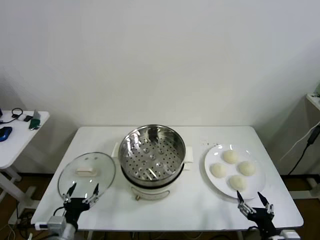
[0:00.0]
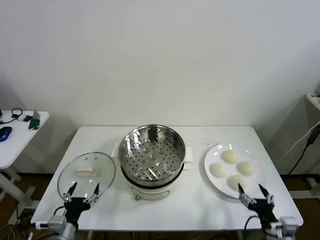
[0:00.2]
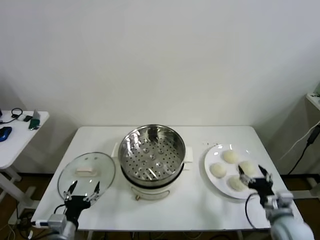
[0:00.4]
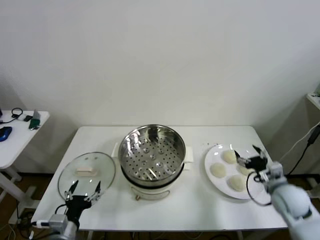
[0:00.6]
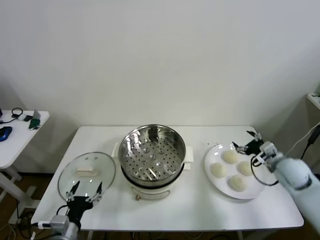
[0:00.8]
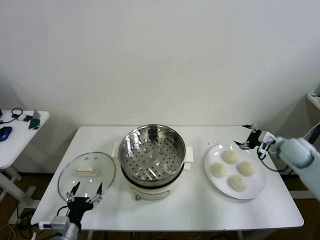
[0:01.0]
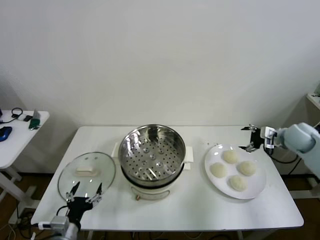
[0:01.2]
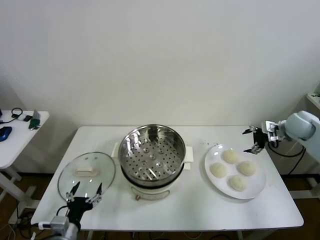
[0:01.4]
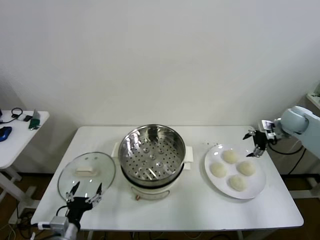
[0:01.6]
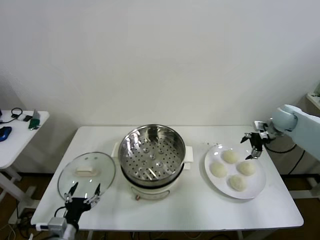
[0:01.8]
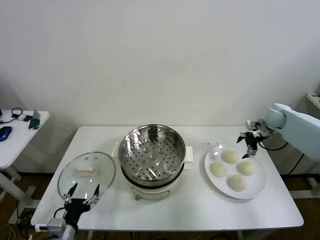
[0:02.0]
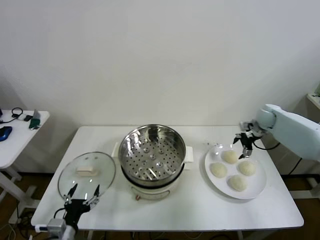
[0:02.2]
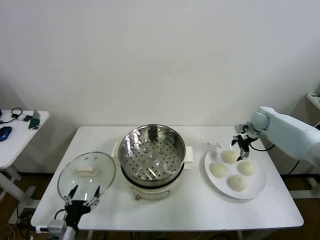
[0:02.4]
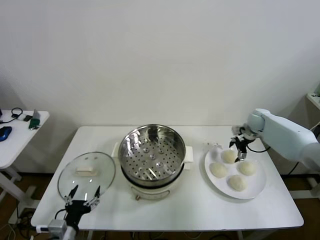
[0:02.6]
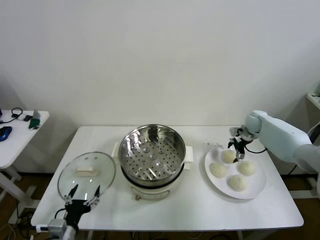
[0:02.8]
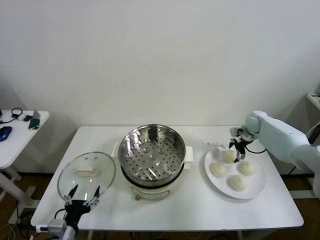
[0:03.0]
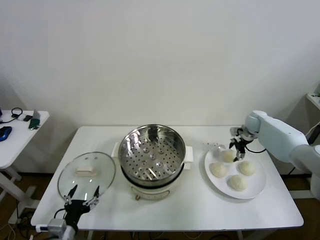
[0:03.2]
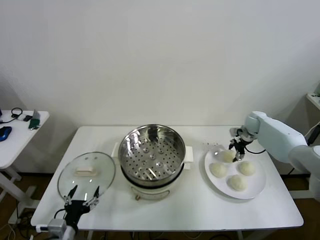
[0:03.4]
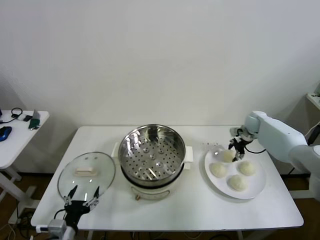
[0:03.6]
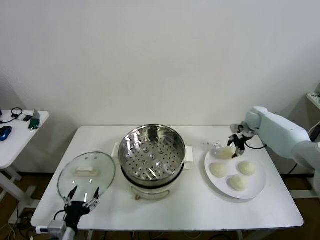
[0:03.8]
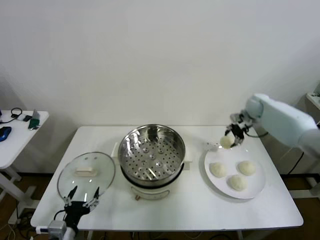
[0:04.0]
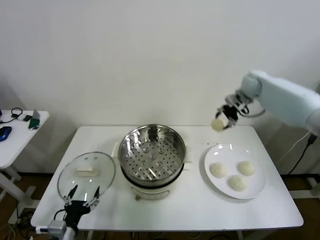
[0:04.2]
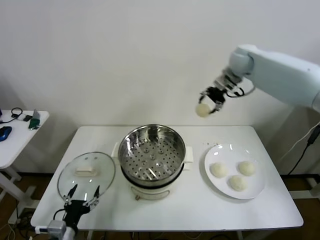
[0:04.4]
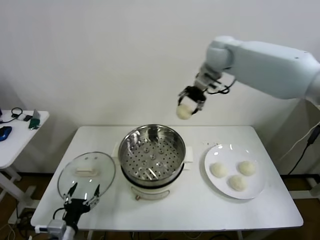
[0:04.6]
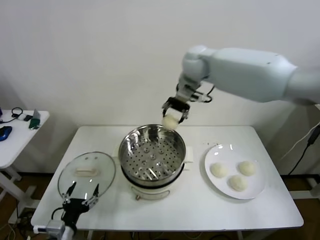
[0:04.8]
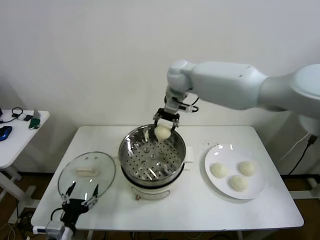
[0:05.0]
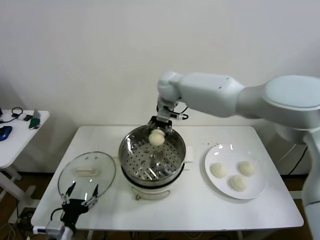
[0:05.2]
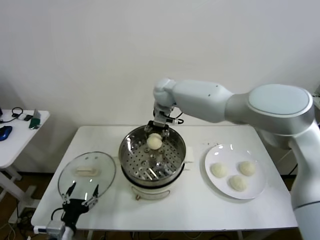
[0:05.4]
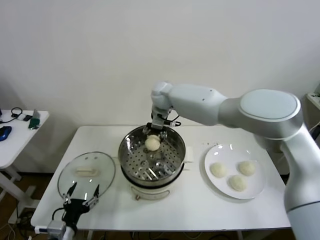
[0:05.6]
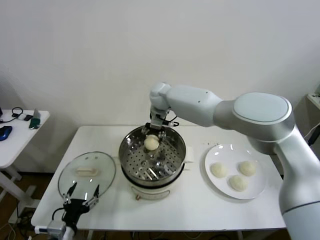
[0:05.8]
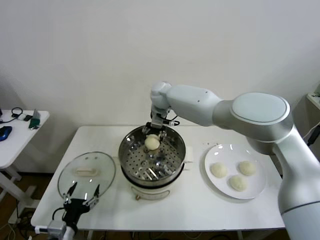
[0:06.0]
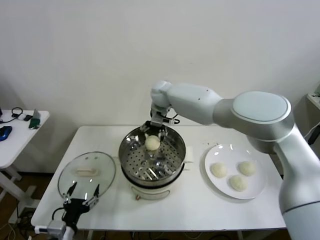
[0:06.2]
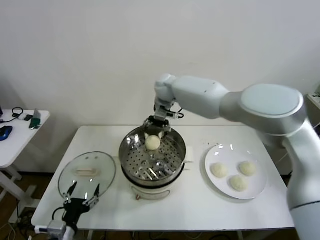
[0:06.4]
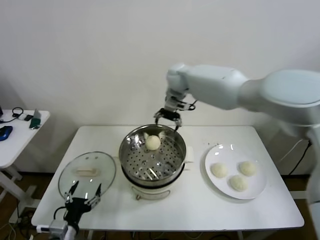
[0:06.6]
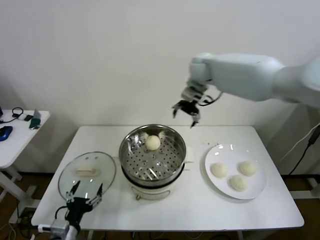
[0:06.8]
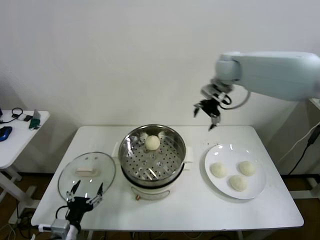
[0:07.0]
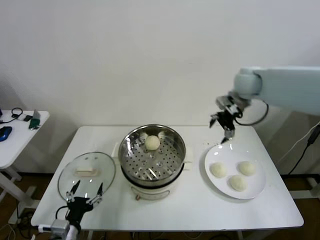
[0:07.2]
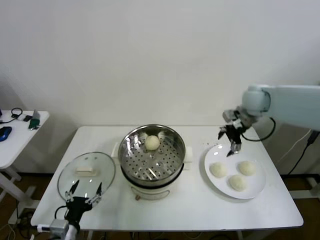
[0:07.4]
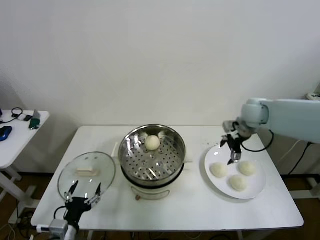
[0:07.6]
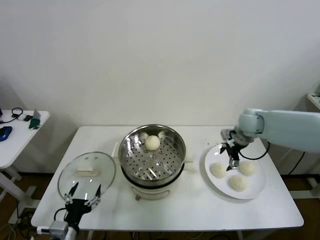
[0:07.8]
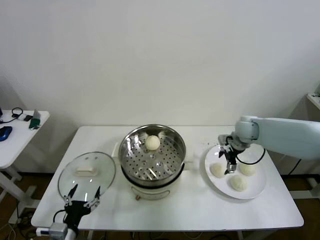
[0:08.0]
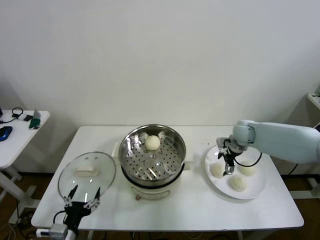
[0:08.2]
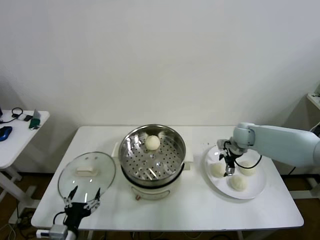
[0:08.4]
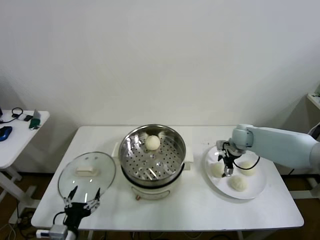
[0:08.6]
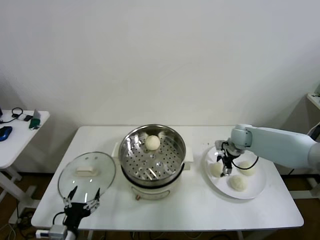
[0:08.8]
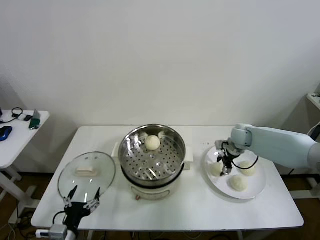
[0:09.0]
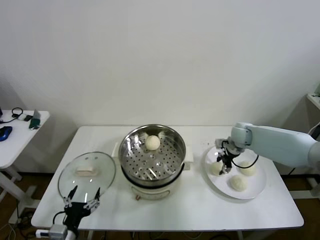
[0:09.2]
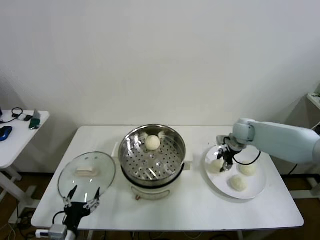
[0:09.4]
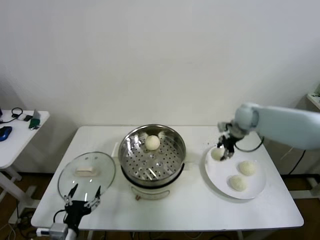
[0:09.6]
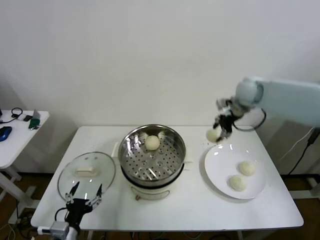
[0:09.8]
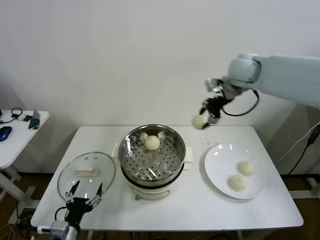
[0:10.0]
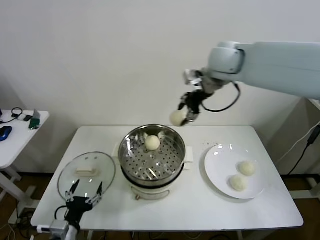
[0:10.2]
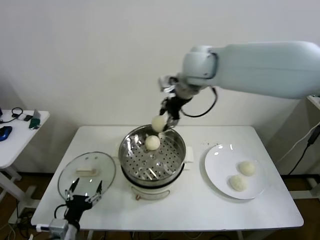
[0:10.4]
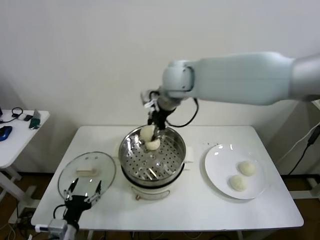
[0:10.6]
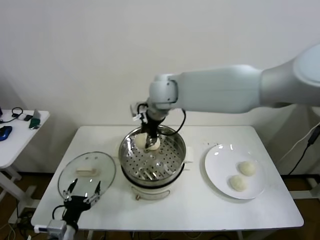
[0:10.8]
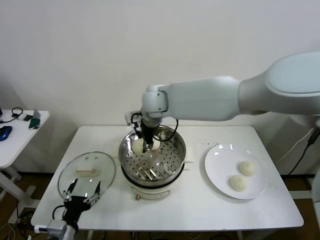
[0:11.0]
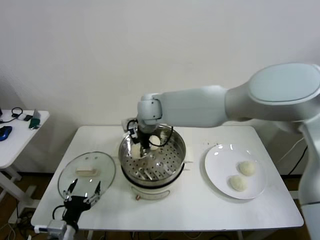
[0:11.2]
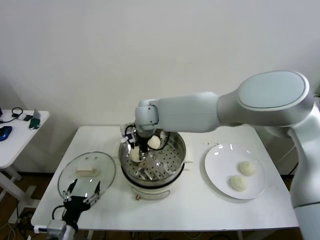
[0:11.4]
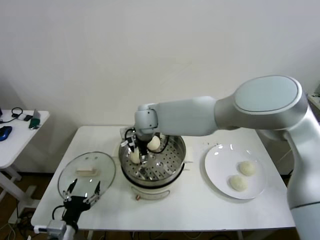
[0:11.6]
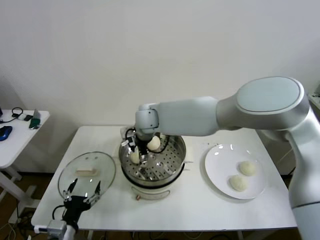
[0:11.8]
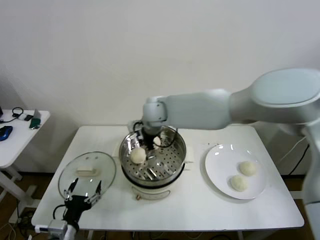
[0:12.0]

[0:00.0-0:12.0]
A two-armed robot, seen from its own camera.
Step, 0.0 to 3.4 s: Grasp the baozi in the plate with right gripper.
Step, 3.6 to 6.2 s: Place the baozi on the steamer with right gripper.
Step, 6.4 to 9.0 s: Grasp the baozi in the plate with right gripper.
Step, 9.2 to 11.6 s: Place the baozi on the steamer with right gripper.
1.6 to 3.0 s: The right gripper heads downward, forward and to the left, covering roughly 15 cm.
3.0 to 4.4 s: The right gripper is displaced upward and to the left by about 35 cm, and closes its fingers.
4.4 to 6.0 s: The right gripper is displaced to the left and downward by approximately 25 cm.
6.0 to 7.6 s: The right gripper heads to the right, covering roughly 30 cm, and opens its fingers.
7.6 to 9.0 s: The right gripper moves downward, approximately 10 cm, and closes up.
9.0 to 10.4 s: The right gripper travels upward and to the left by about 40 cm.
10.4 to 12.0 s: The right gripper travels downward and to the left by approximately 15 cm, and opens.

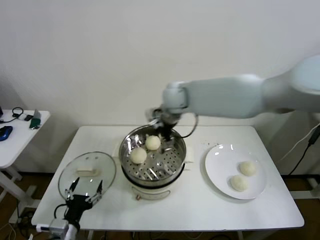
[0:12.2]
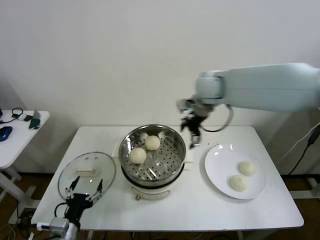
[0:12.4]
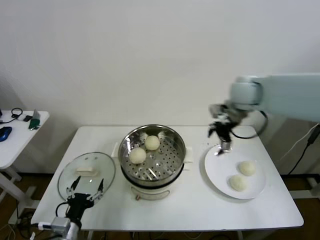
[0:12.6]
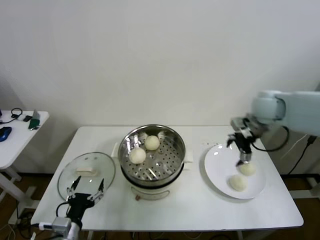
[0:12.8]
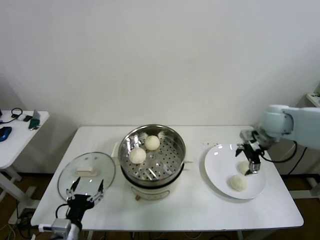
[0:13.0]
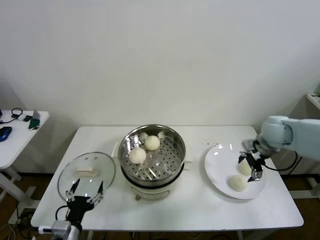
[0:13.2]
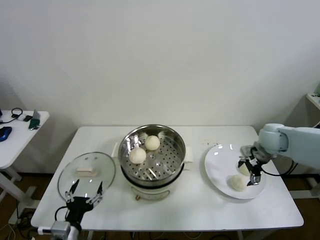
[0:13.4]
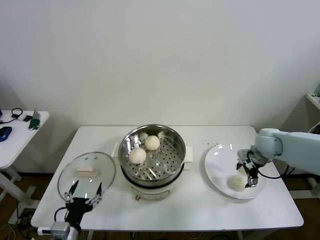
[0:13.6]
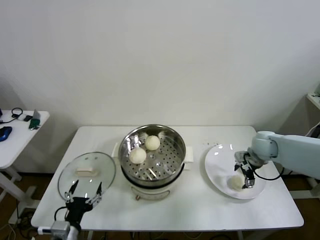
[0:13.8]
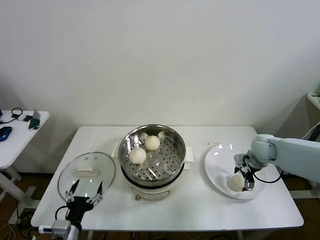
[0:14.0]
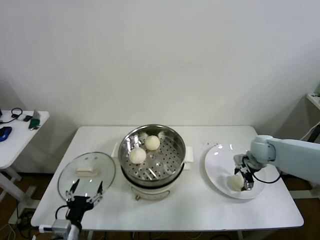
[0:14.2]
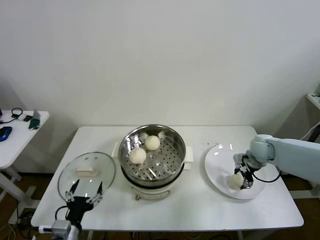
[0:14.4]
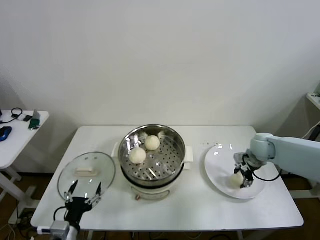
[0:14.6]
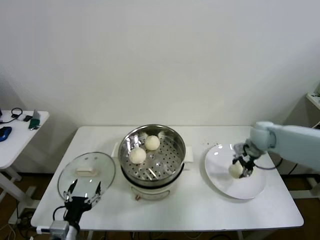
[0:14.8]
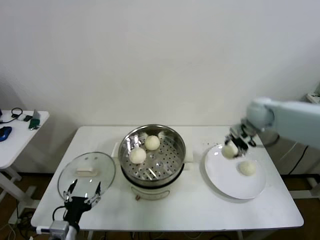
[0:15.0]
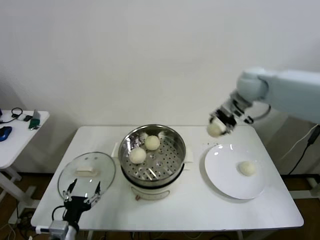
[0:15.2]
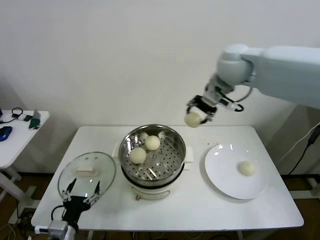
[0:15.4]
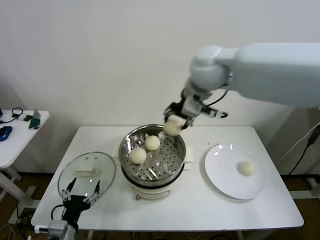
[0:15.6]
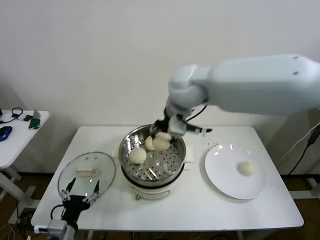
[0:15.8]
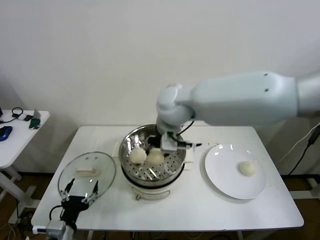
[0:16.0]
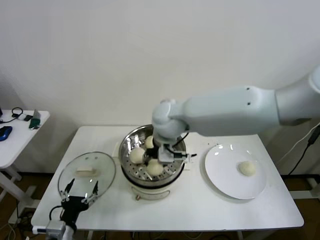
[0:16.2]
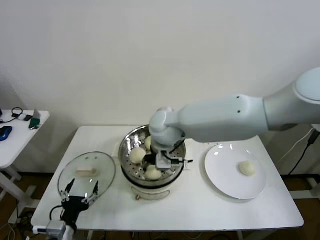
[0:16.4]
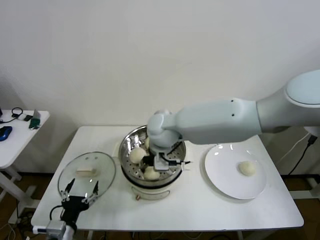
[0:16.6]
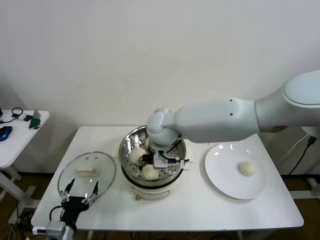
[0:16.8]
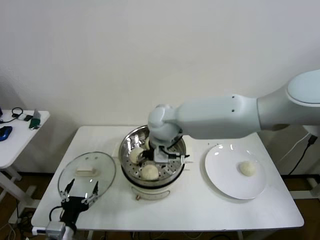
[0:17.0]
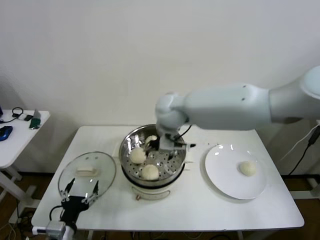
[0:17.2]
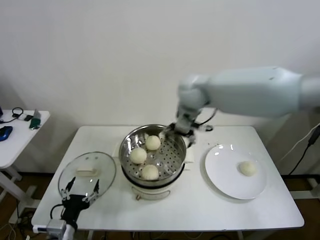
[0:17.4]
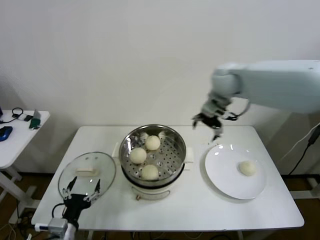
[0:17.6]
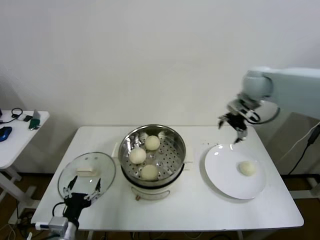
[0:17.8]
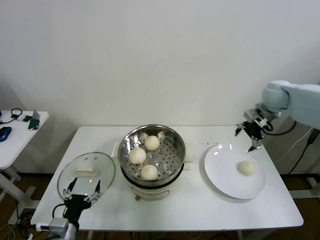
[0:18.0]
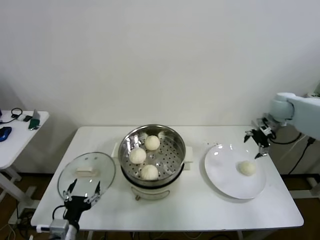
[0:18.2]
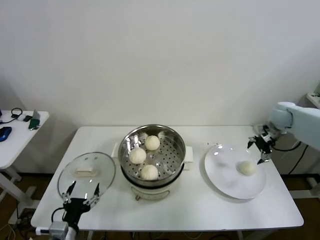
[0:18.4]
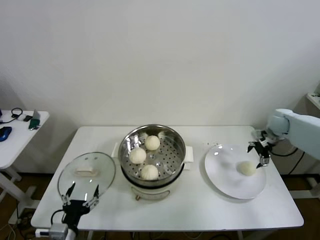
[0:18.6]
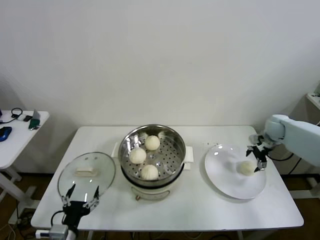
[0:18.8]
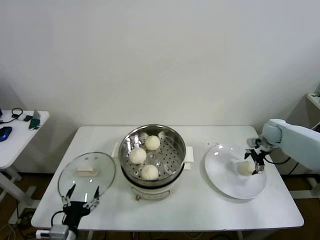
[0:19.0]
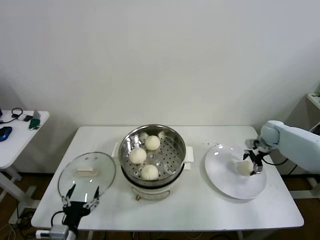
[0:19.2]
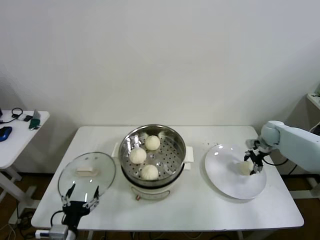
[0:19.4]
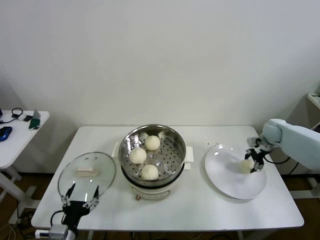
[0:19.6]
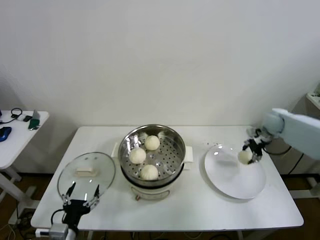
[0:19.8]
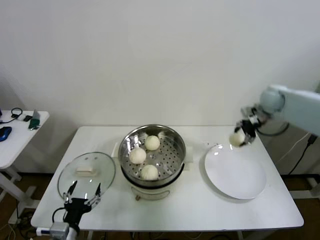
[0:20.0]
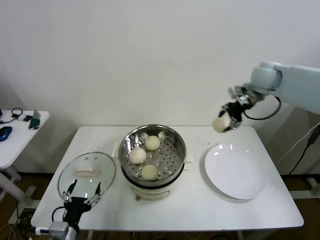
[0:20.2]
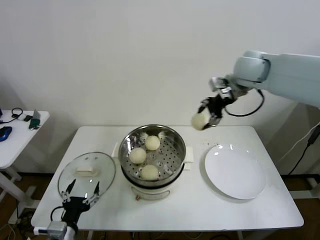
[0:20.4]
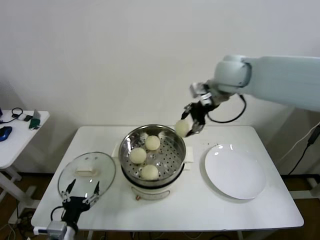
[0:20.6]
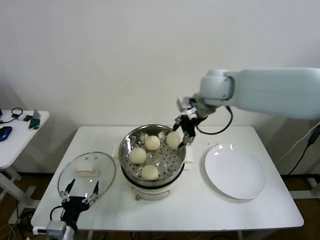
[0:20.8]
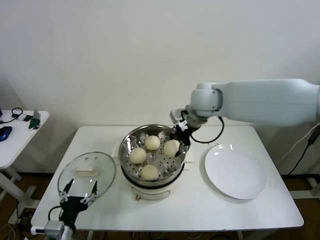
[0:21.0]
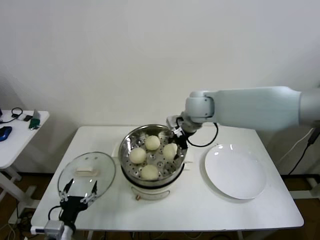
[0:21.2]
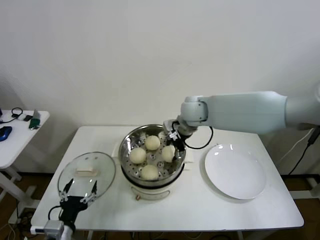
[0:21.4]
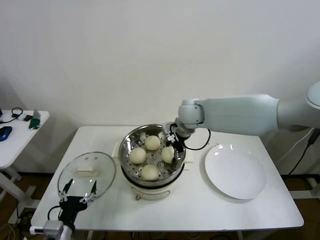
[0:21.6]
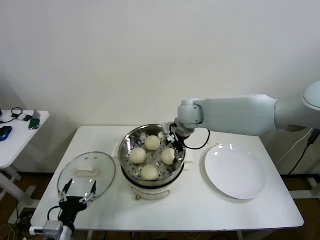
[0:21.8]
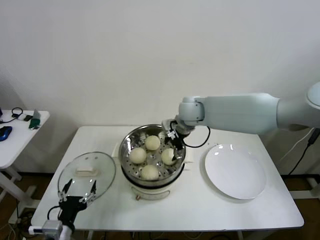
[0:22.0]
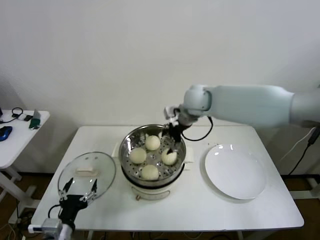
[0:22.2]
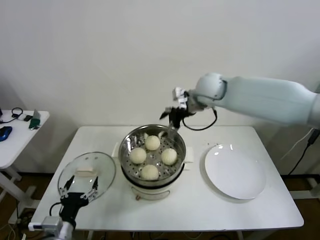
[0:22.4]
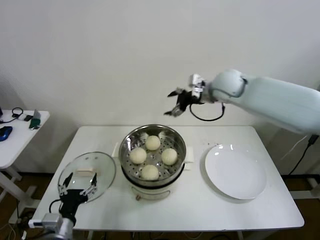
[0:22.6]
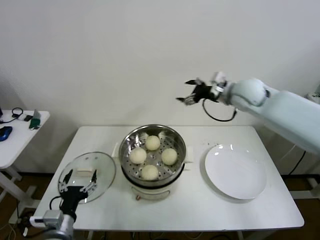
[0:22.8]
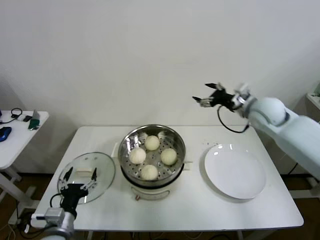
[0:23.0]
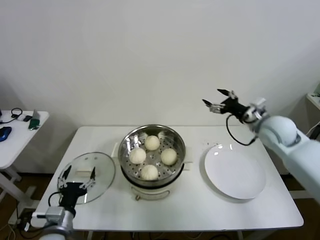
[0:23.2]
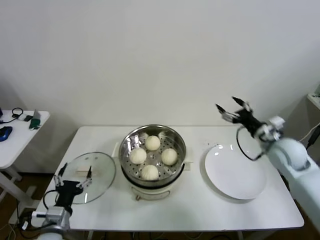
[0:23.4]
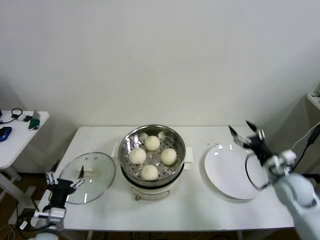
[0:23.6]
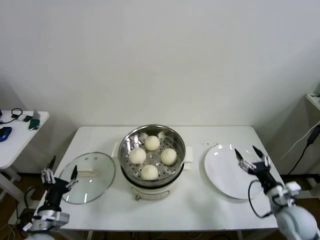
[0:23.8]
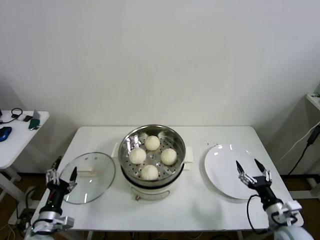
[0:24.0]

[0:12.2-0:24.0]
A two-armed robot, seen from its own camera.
Step, 12.2 to 14.4 s: Grasp the baozi in the plate with right gripper.
Step, 14.6 to 16.8 s: Place the baozi on the steamer with right gripper.
Step, 17.0 to 19.4 s: Grasp the baozi in the plate with right gripper.
Step, 19.6 to 21.8 s: Place the baozi on the steamer with right gripper.
12.2 to 13.6 s: The right gripper is displaced to the right and downward by some 35 cm.
13.6 to 15.2 s: The right gripper heads upward and to the left, covering approximately 25 cm, and closes up.
15.2 to 16.6 s: The right gripper goes some 30 cm to the left and downward.
16.6 to 18.2 s: The right gripper travels to the right by roughly 40 cm, and opens up.
18.2 to 19.6 s: The right gripper travels downward by some 10 cm, and closes.
19.6 to 21.0 s: The right gripper goes roughly 40 cm to the left and upward.
21.0 to 22.6 s: The right gripper is displaced to the right by some 5 cm, and opens its fingers.
22.6 to 24.0 s: The left gripper heads to the left, covering some 5 cm. The right gripper heads downward, backward and to the right, covering some 50 cm.
